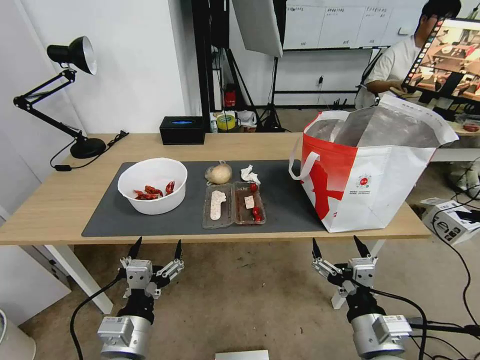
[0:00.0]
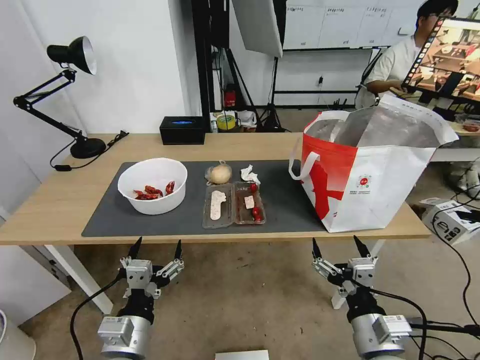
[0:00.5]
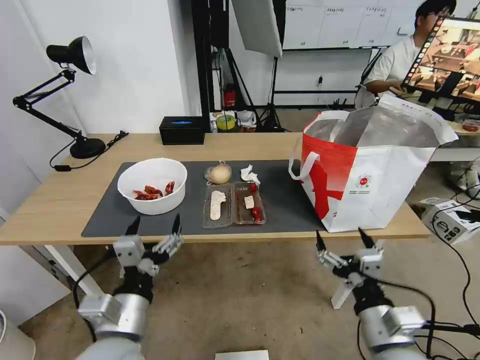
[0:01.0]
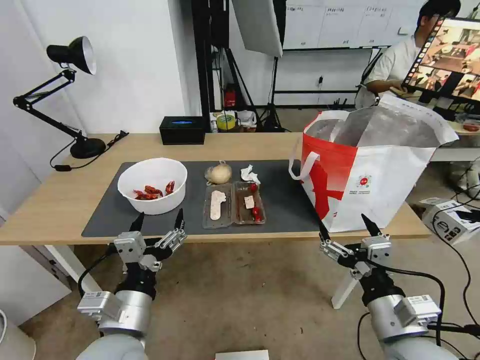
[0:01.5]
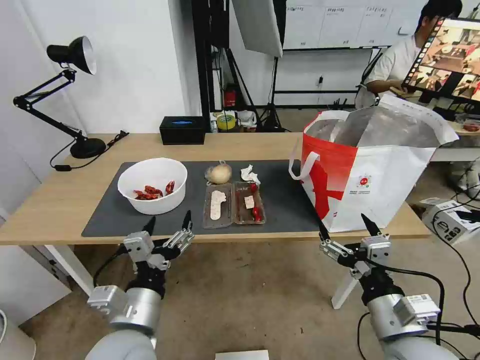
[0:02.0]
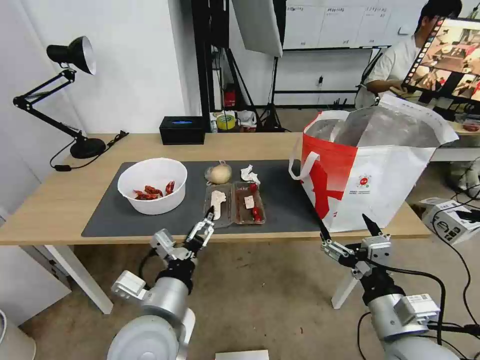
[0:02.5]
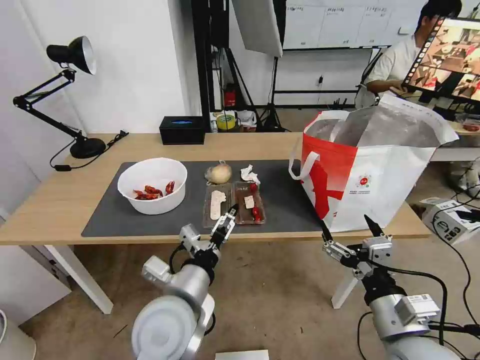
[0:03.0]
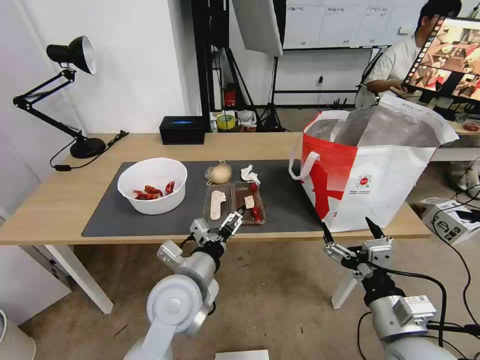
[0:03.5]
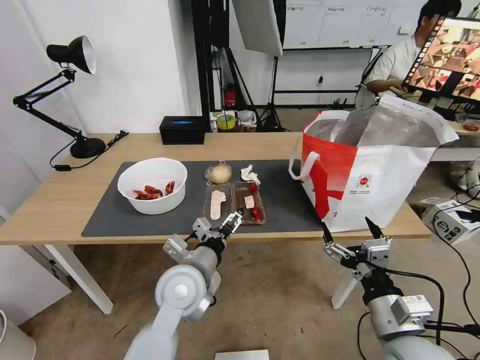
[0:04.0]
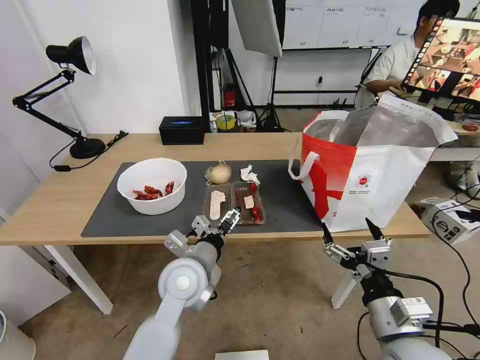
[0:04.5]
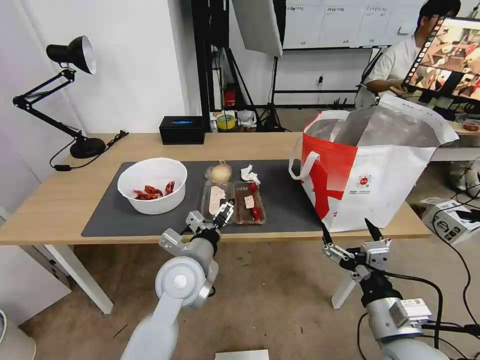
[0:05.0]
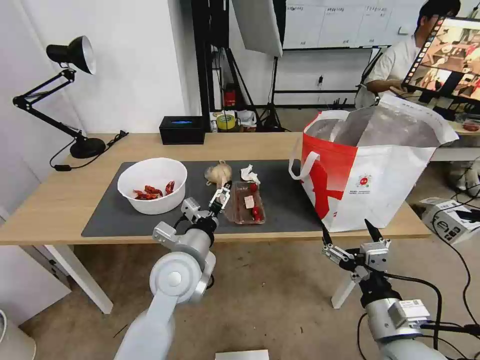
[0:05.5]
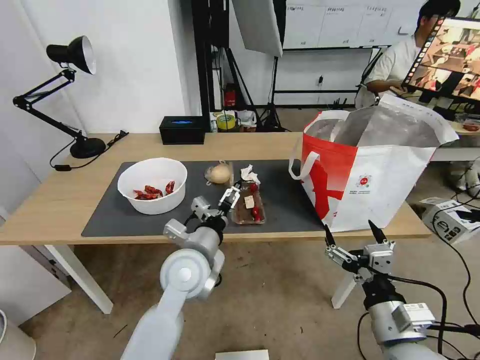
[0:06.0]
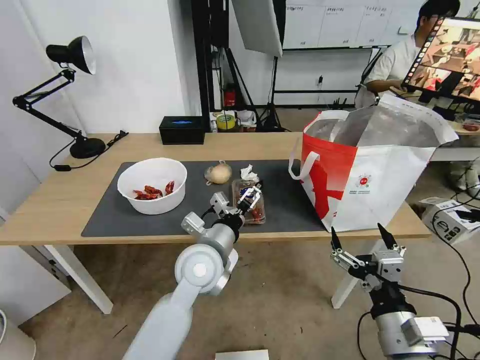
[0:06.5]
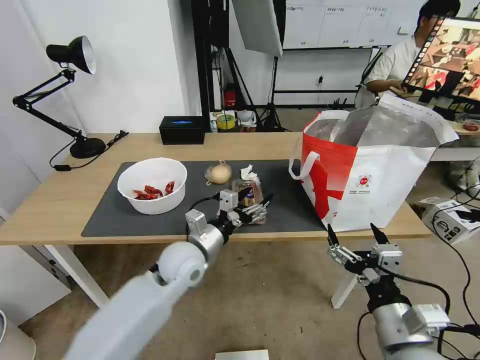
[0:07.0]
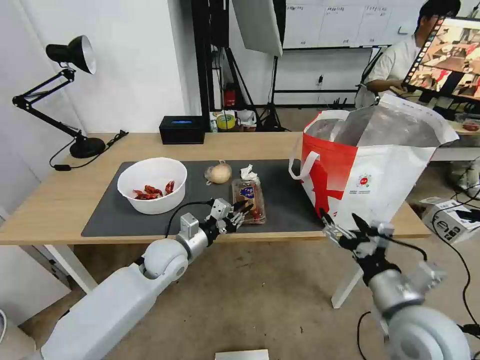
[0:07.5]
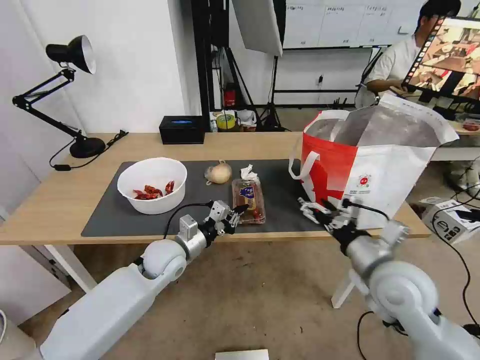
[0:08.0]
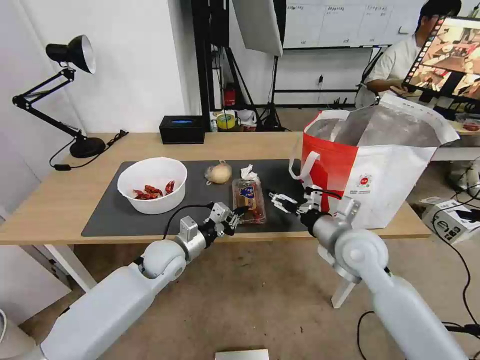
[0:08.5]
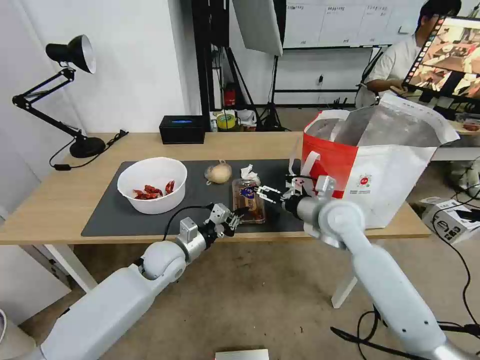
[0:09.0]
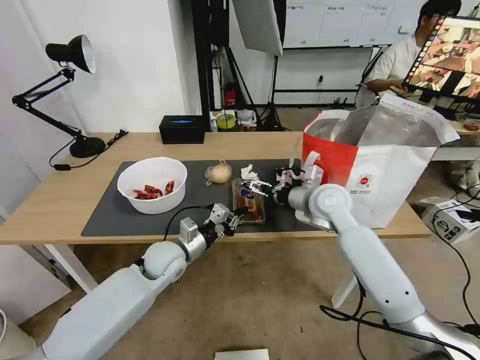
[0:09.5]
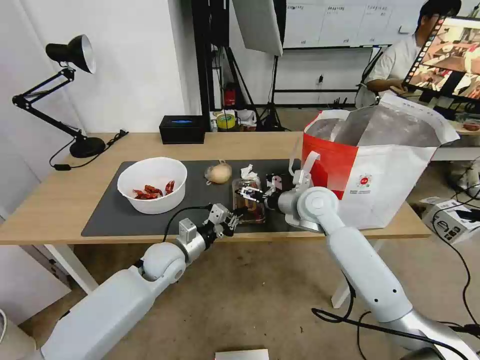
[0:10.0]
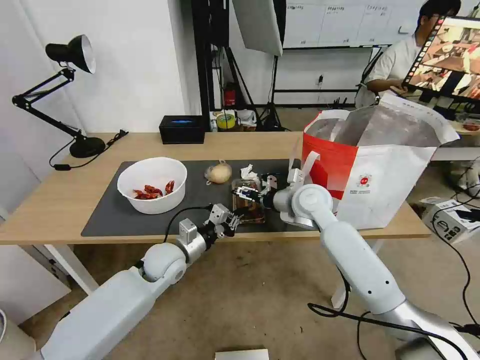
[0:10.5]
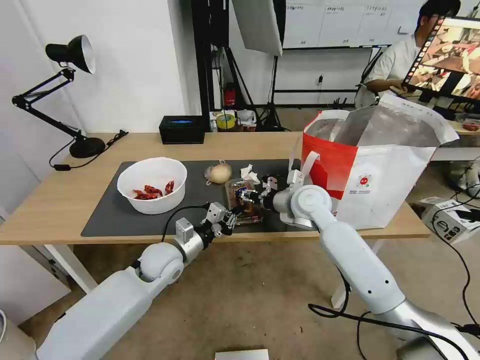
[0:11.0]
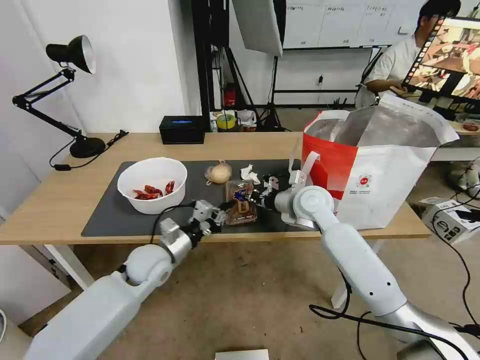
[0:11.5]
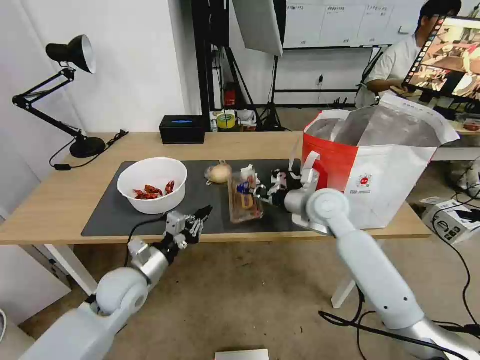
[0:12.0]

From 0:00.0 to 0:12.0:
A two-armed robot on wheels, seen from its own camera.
Task of the whole recording: Pick up the trash from the table and place it into the takeout bag.
From 0:02.0 to 0:04.0: The left gripper heads forward and to the right, covering roughly 15 cm.
From 0:04.0 to 0:06.0: The grippers stay close to where they were, moving slightly.
From 0:06.0 to 0:08.0: The left gripper shifts approximately 15 cm to the left, downward and forward, and closes up, while the right gripper is displaced forward by some 15 cm.
From 0:08.0 to 0:10.0: The right gripper travels forward and to the left by some 20 cm.
From 0:10.0 to 0:12.0: The right gripper closes up. Meanwhile the left gripper travels backward and to the left by some 10 cm.

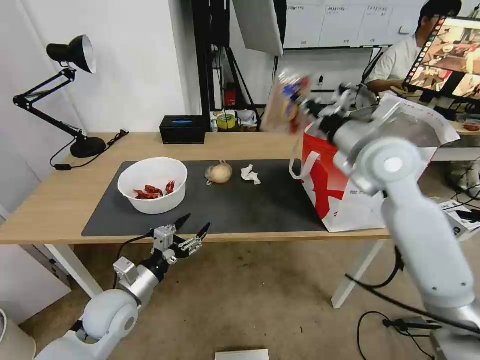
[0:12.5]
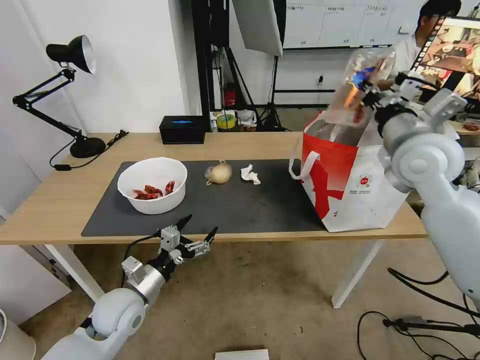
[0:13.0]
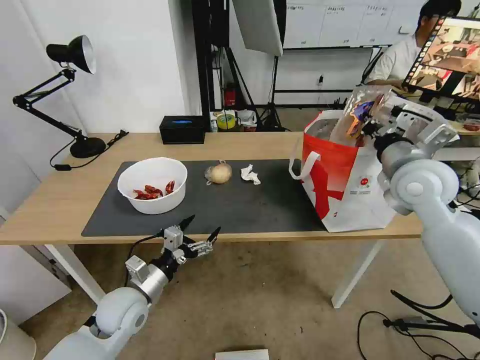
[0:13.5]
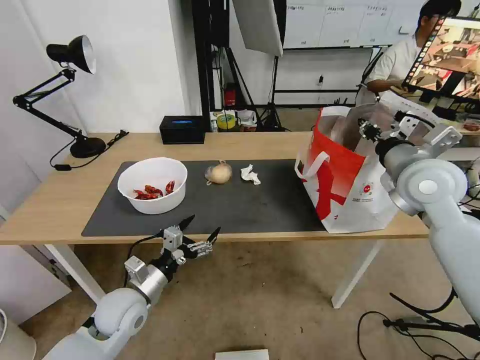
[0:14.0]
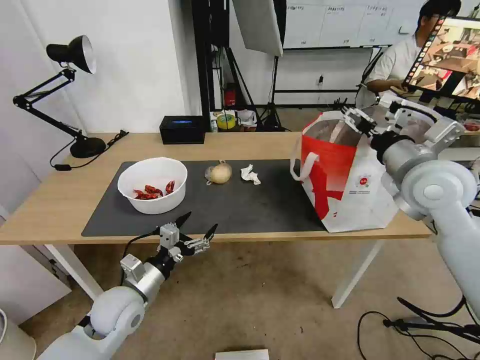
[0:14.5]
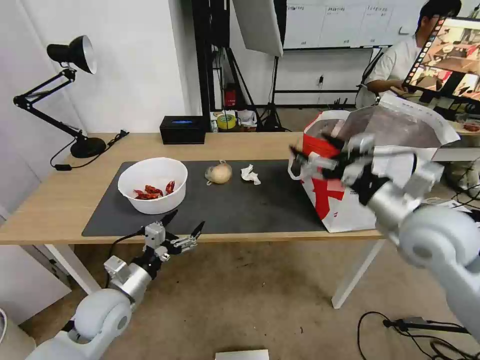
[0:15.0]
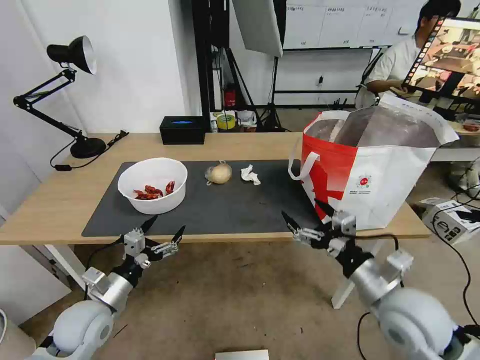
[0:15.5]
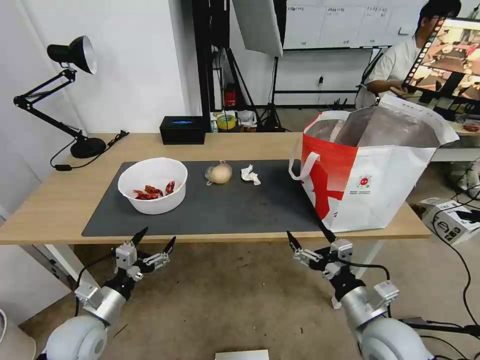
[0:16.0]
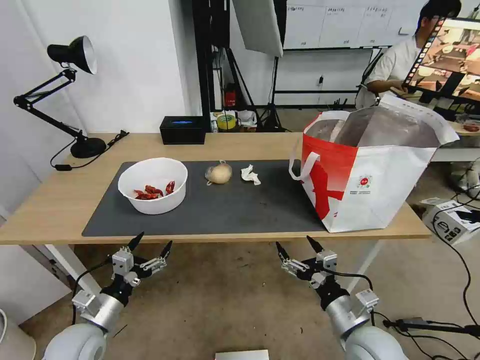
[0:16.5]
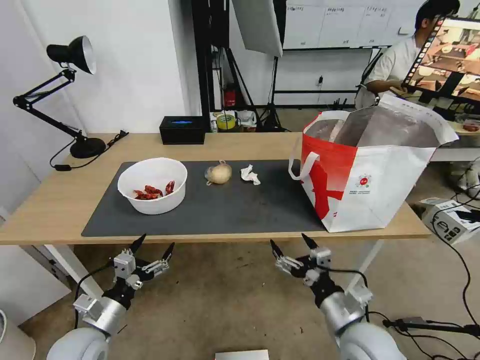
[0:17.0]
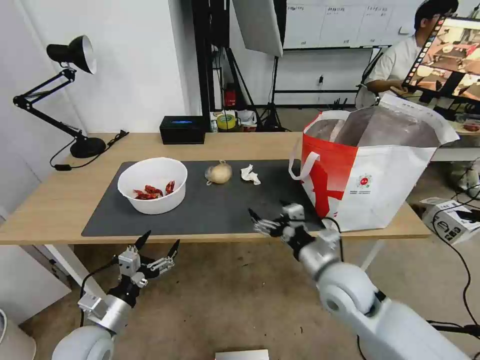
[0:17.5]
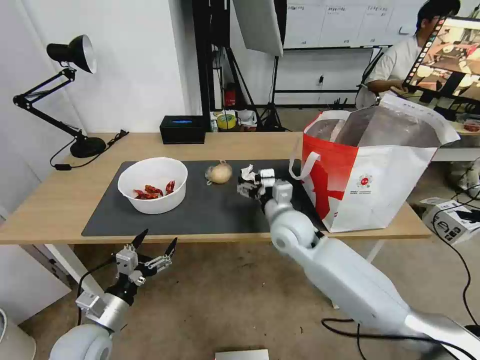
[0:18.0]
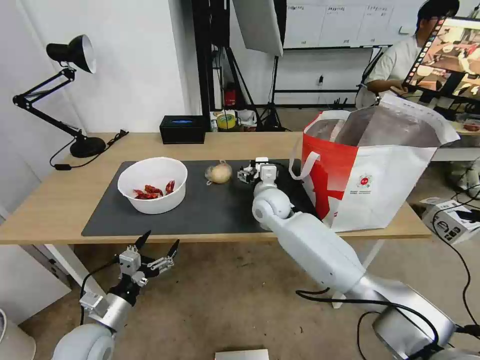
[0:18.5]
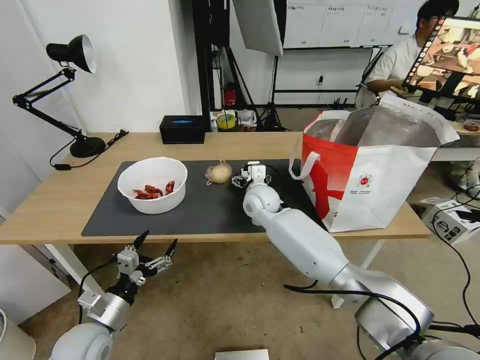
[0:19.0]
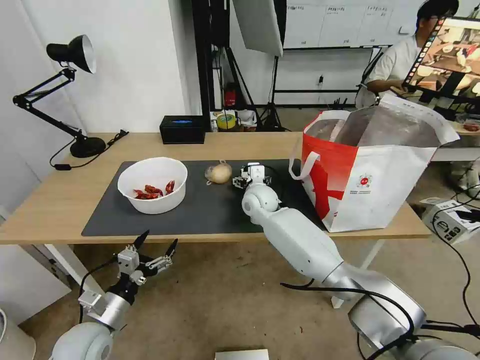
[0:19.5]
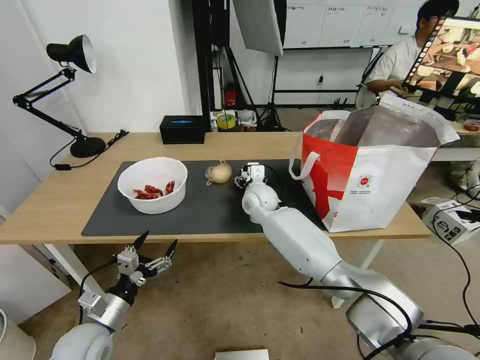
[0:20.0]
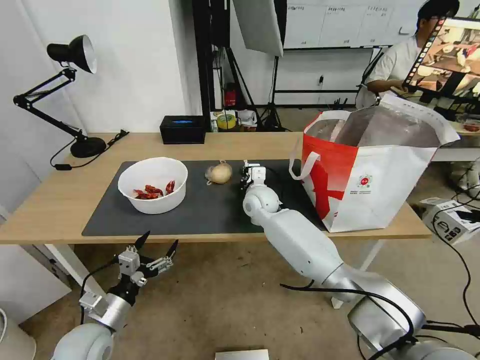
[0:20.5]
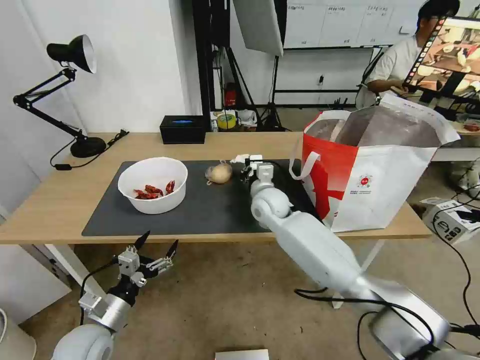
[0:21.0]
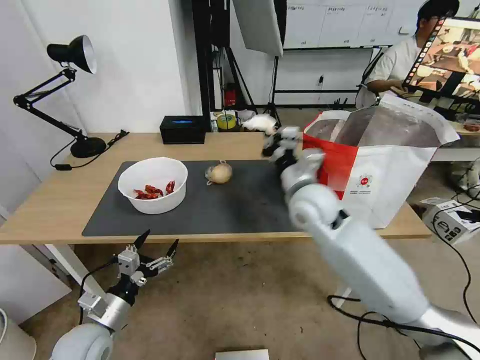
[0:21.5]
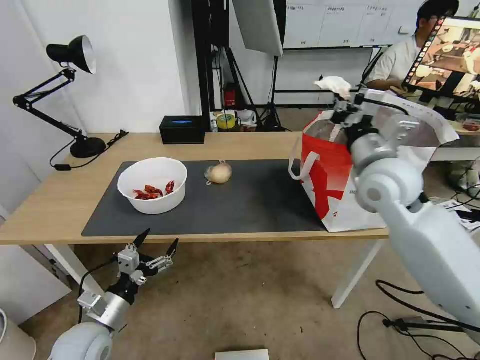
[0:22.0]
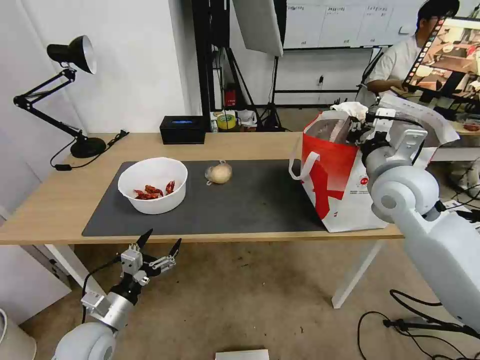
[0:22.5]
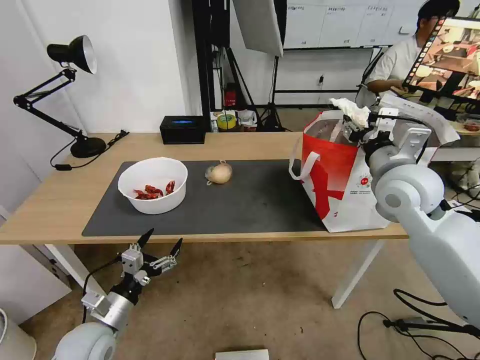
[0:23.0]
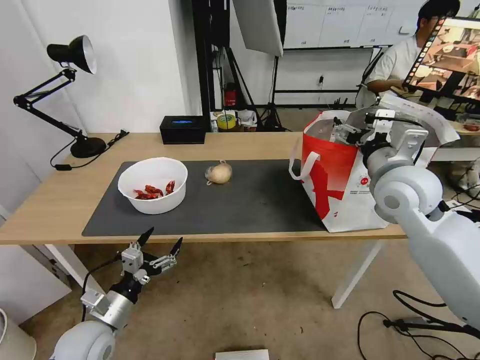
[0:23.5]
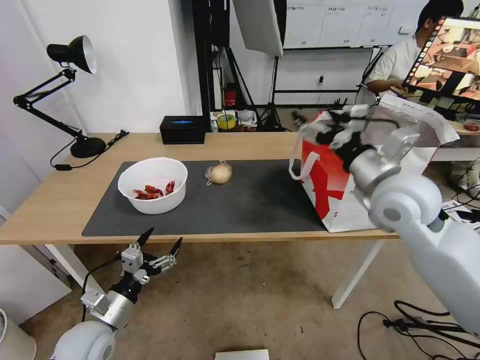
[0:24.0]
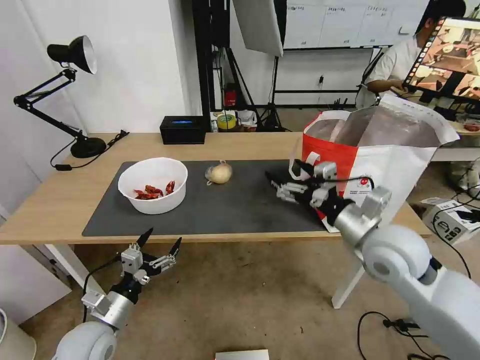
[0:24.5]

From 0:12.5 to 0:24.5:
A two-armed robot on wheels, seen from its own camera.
Task of the whole recording: Pick up the trash from the table and place it into the takeout bag.
From 0:12.5 to 0:14.5: The right gripper moves to the right, approximately 10 cm, and opens its fingers.
From 0:14.5 to 0:16.5: The right gripper moves downward and backward, approximately 30 cm. Meanwhile the left gripper heads to the left and backward, covering some 10 cm.
From 0:16.5 to 0:18.5: The right gripper is displaced forward and to the left by about 35 cm.
From 0:18.5 to 0:20.5: The right gripper closes up.
From 0:20.5 to 0:22.5: The right gripper heads to the right, upward and backward, covering roughly 30 cm.
From 0:22.5 to 0:24.5: The right gripper changes place by about 5 cm, and opens.

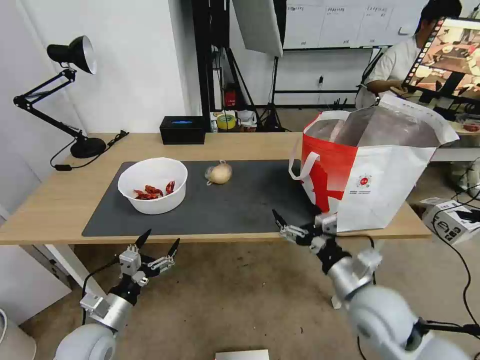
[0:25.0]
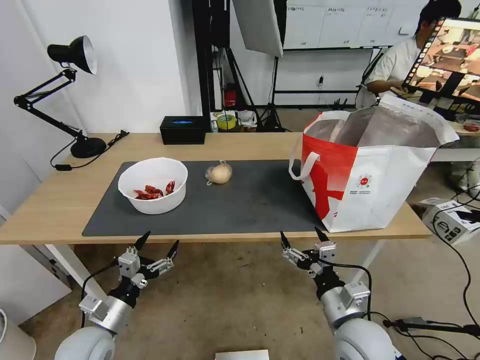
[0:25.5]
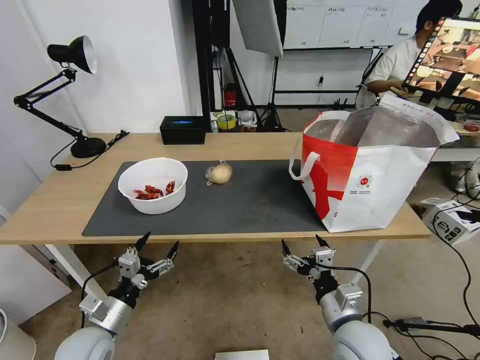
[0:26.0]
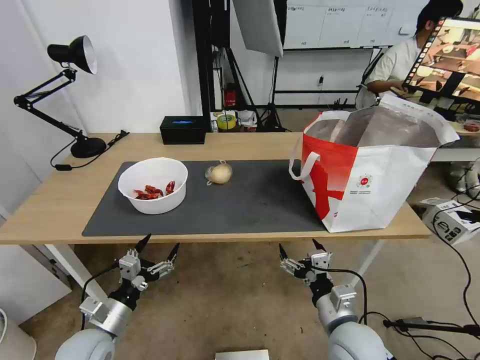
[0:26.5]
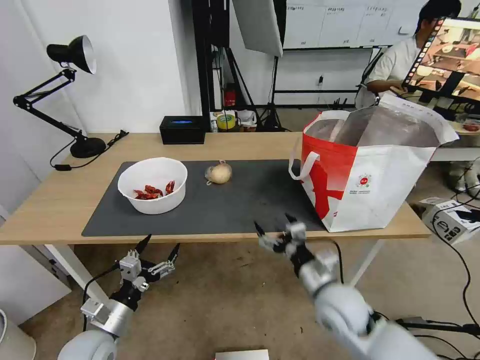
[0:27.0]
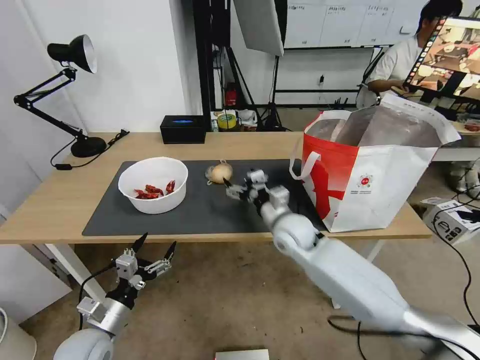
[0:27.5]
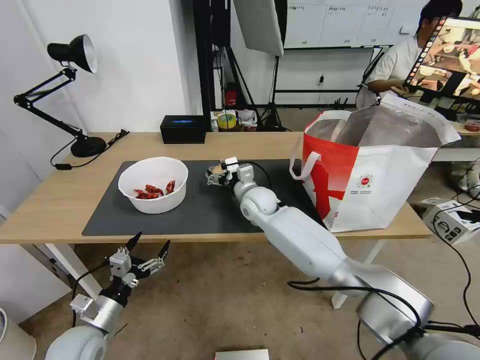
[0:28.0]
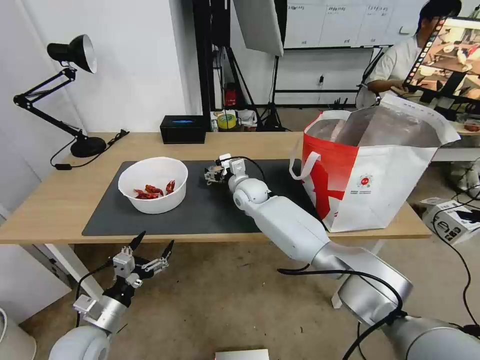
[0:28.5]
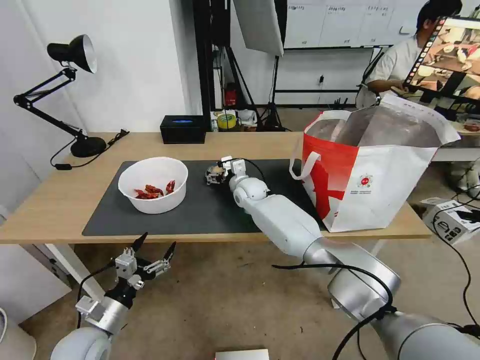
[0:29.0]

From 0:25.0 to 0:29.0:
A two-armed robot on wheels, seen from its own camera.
Task of the whole recording: Pick up the trash from the table and place it into the takeout bag.
From 0:25.0 to 0:27.0: The right gripper moves downward and to the left, about 10 cm.
From 0:27.0 to 0:29.0: The right gripper is displaced forward and to the left by some 35 cm.
